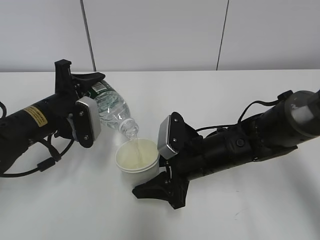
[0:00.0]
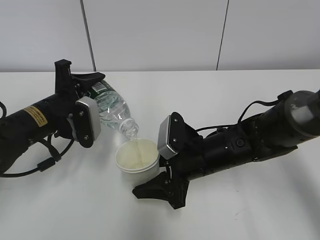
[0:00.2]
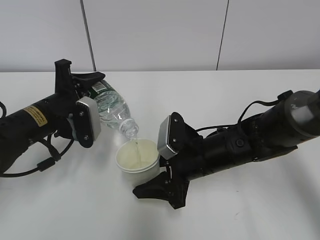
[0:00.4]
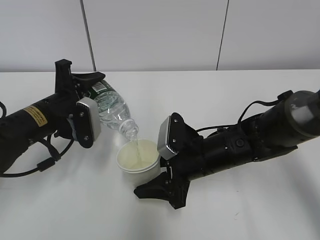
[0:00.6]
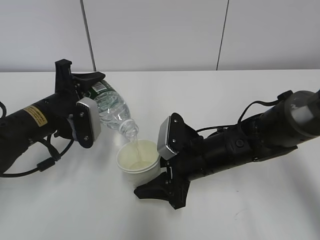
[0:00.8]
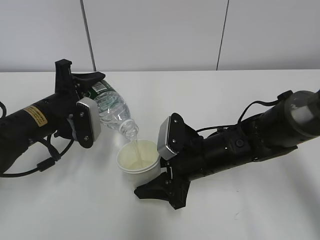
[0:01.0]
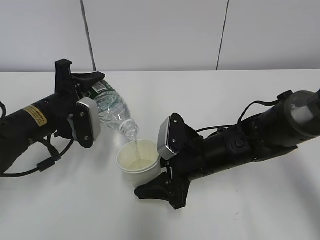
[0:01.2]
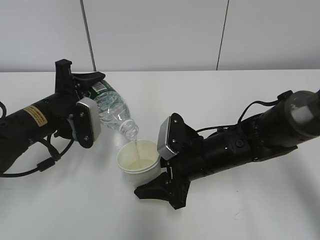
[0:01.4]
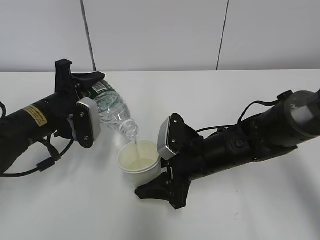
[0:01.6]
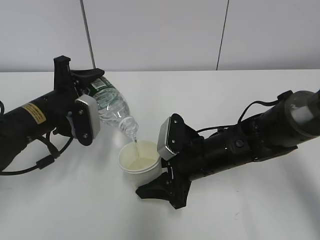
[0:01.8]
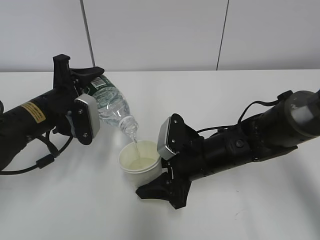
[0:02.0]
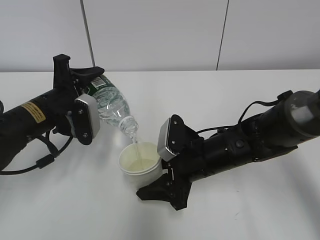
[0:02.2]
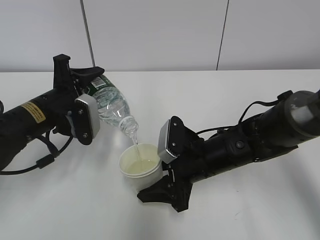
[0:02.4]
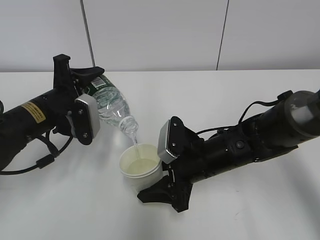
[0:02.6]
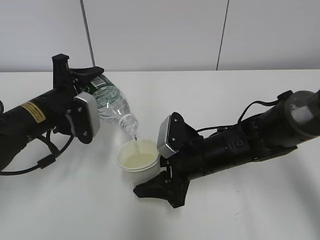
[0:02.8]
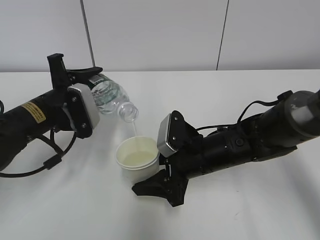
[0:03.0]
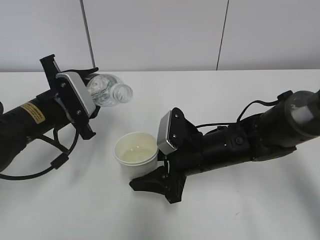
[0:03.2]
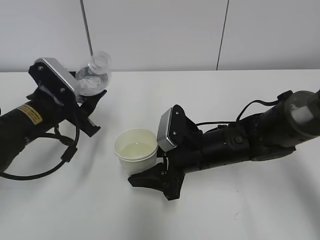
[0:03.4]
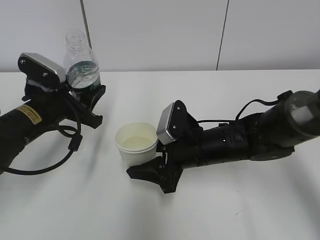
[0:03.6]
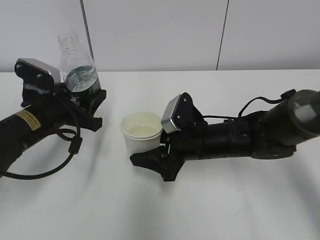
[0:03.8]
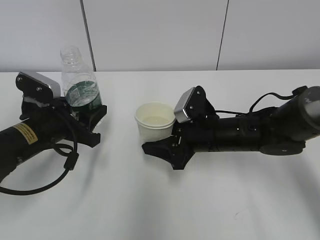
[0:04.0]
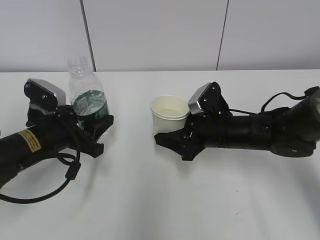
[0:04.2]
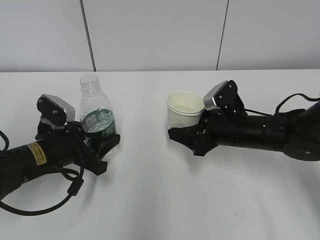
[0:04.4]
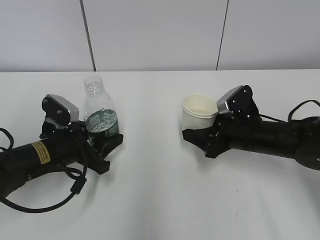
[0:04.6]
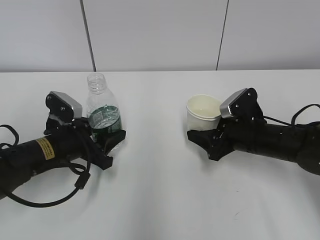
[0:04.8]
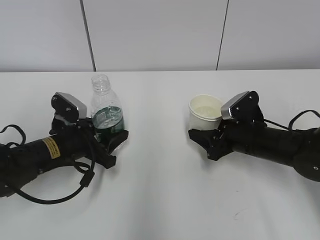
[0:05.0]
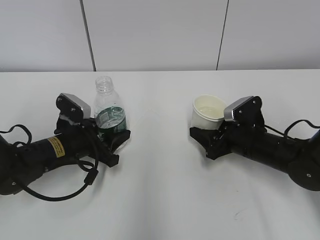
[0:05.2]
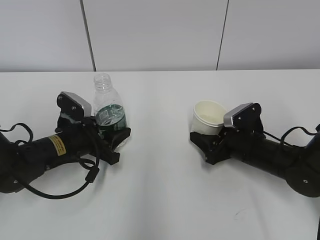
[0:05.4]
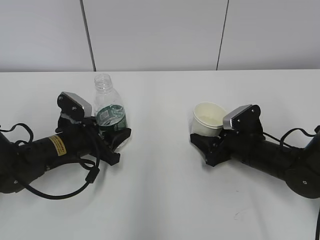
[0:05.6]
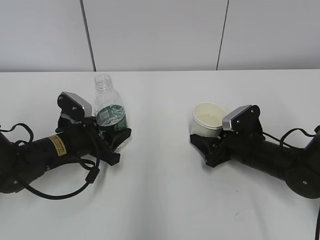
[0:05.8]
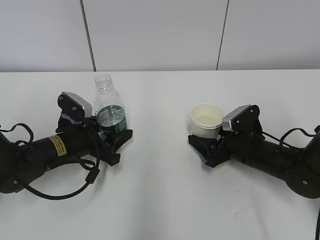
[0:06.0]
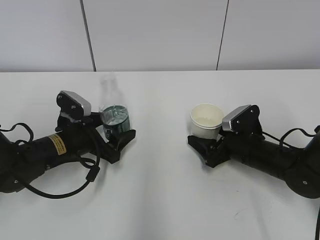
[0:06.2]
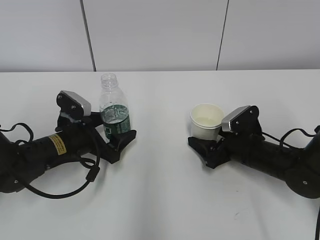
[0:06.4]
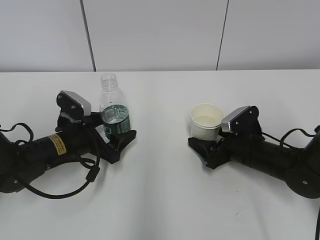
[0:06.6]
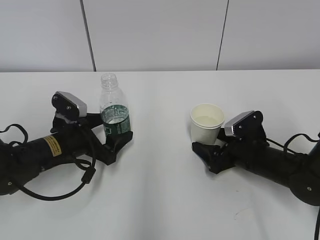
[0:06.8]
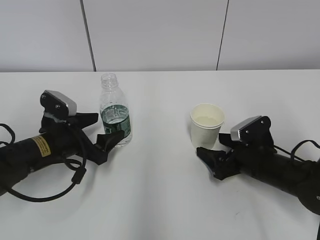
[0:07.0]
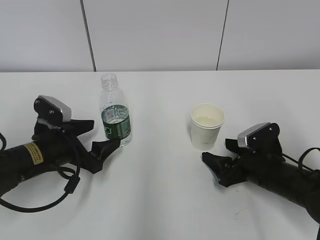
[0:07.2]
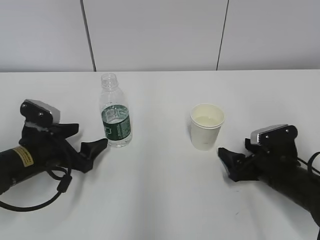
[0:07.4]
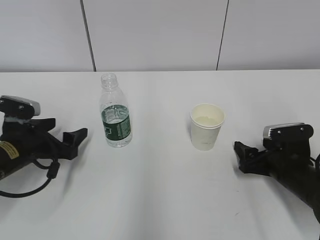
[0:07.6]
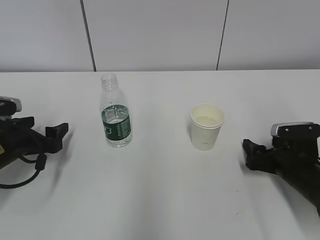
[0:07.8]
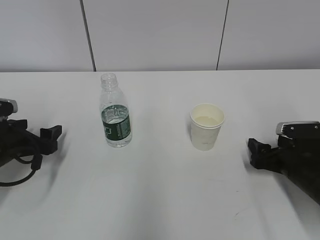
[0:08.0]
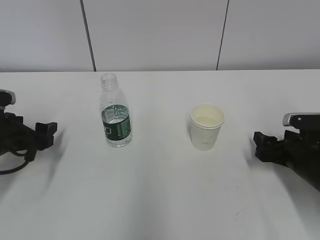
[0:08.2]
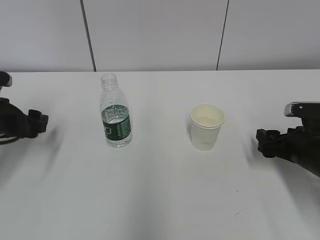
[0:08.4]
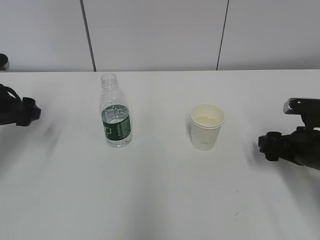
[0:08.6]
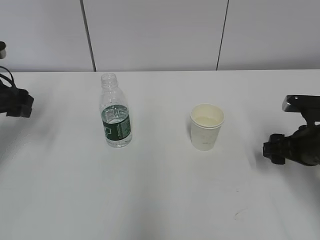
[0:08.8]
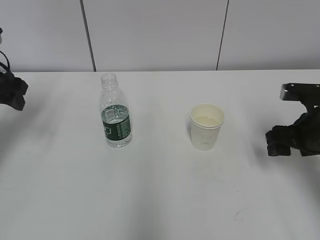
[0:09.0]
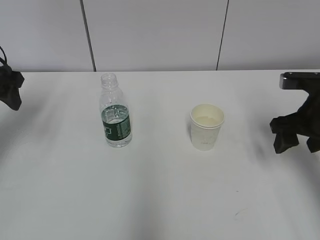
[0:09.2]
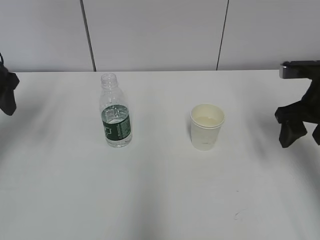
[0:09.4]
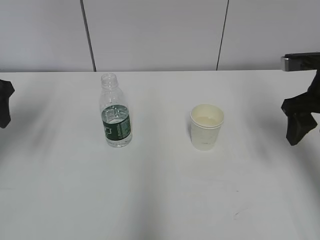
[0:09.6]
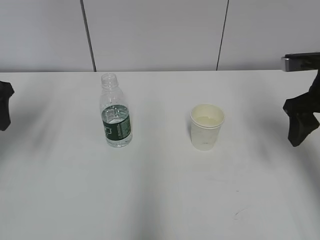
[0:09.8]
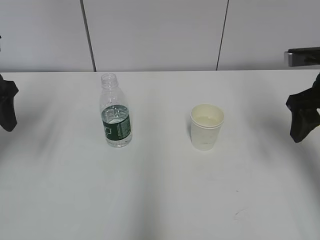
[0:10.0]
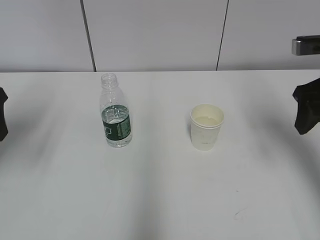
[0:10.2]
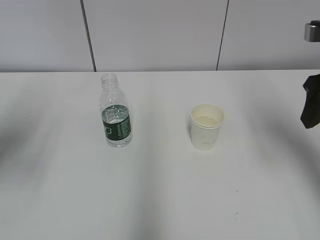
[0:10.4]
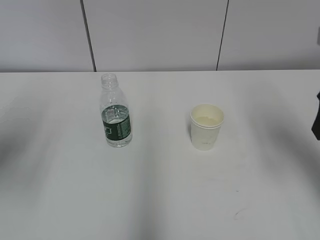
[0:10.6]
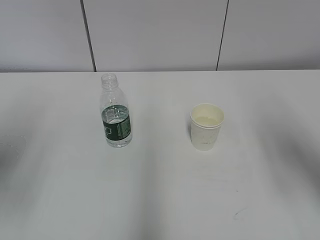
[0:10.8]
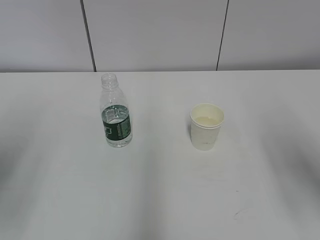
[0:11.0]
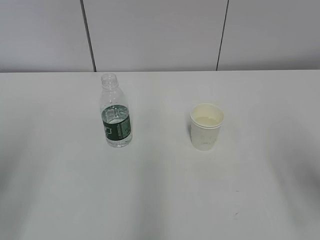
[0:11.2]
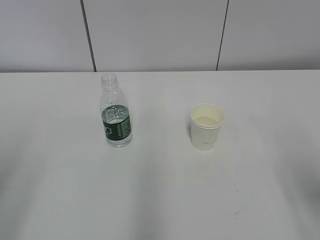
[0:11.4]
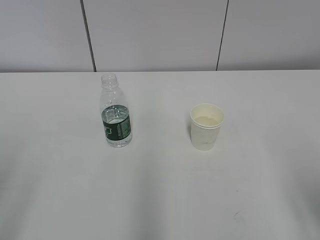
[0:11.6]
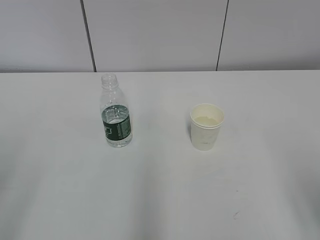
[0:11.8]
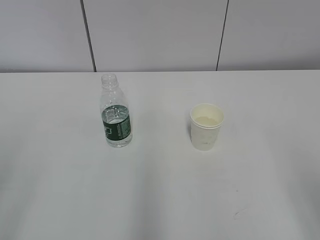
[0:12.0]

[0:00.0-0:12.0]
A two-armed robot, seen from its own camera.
Step, 0.6 to 2.4 s: Place the paper cup with the right hand.
0.0 to 1.6 s: Neither gripper changes place.
1.6 to 3.0 s: There are only small adjustments of the grippers.
3.0 to 4.4 s: The left gripper is displaced downward by roughly 5 cm; the right gripper heads to the right, covering about 5 cm.
4.4 to 6.0 s: The right gripper shifts roughly 5 cm downward, and opens.
6.0 to 7.6 s: The right gripper heads backward, covering some 5 cm, and opens its fingers, while the left gripper moves to the left, about 5 cm, and opens its fingers.
7.6 to 9.0 s: The left gripper travels upward and to the left by roughly 15 cm, while the right gripper shifts roughly 10 cm upward, and closes up.
9.0 to 10.4 s: The left gripper is displaced backward by roughly 10 cm, while the right gripper shifts some 15 cm upward.
10.4 to 12.0 s: Both grippers travel together backward, some 20 cm.

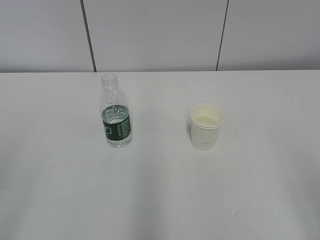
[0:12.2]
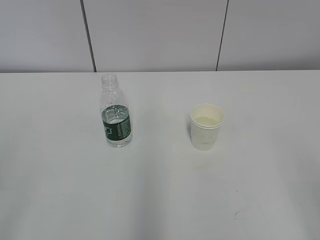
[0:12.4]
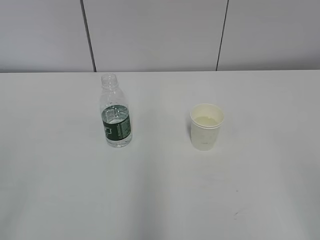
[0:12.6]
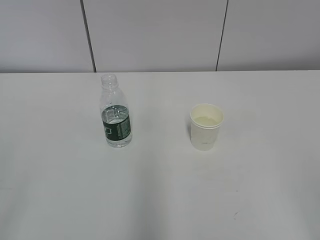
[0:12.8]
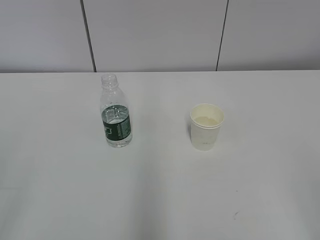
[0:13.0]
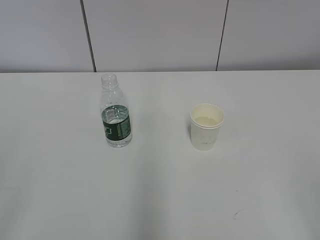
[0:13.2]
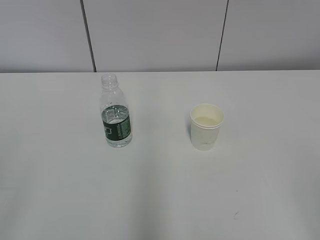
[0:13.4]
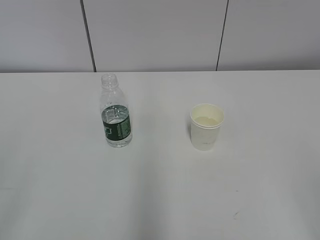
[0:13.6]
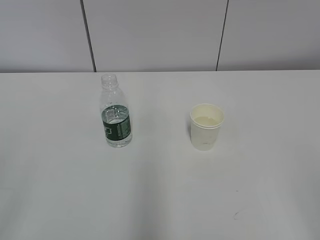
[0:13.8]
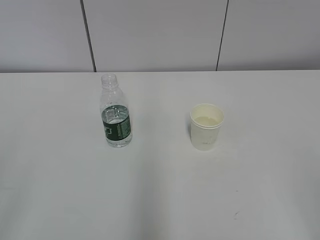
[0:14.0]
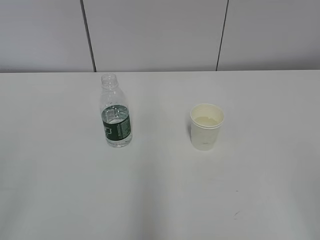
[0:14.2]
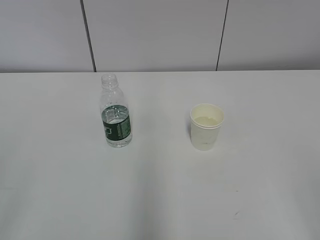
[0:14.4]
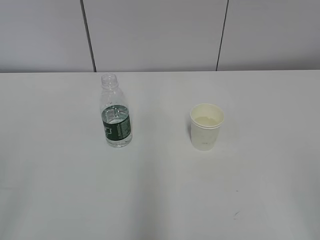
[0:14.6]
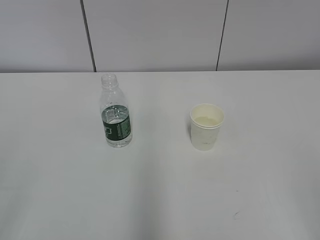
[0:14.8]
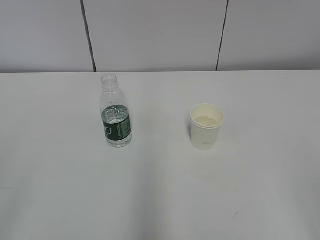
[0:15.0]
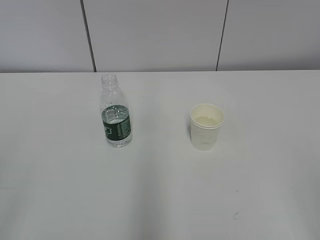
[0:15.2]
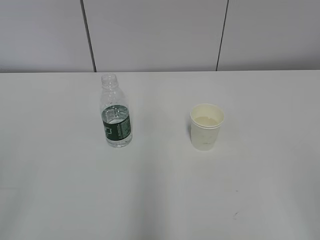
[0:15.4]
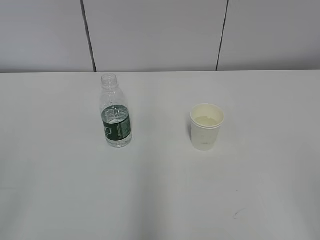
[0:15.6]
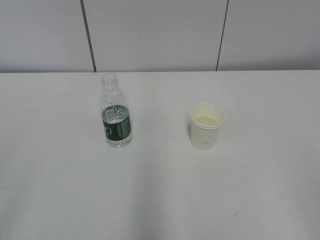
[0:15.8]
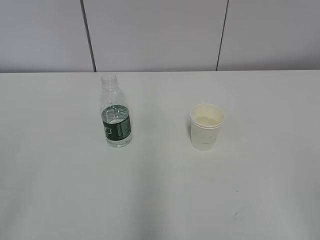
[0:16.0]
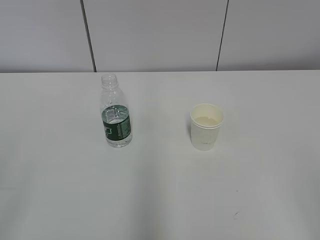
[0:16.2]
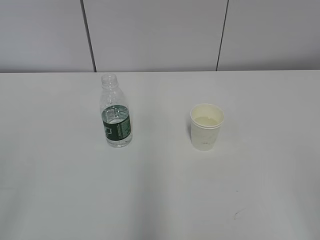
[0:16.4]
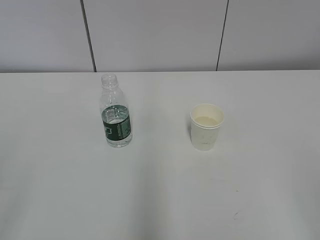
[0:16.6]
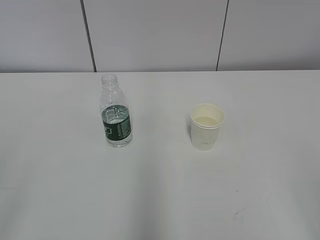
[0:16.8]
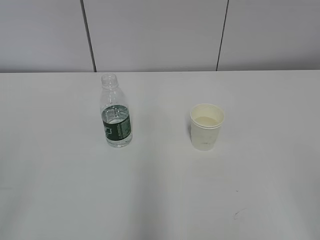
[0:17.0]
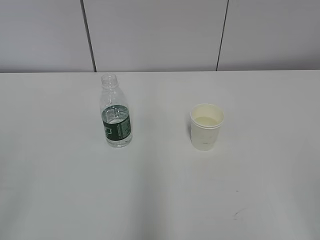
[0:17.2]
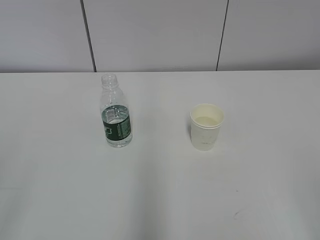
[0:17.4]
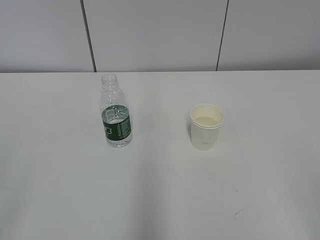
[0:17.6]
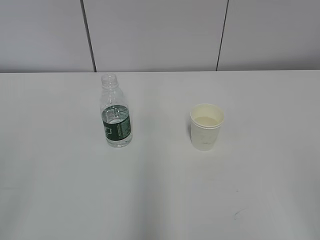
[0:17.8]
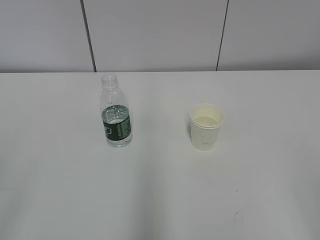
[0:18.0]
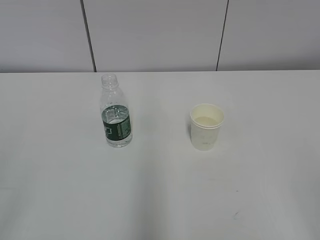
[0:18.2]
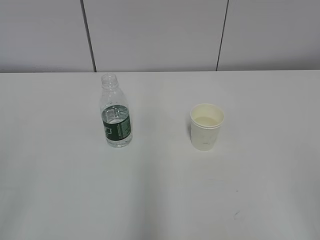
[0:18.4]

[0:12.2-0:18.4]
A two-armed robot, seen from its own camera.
13.8 to 18.4 s: Both grippers stay put.

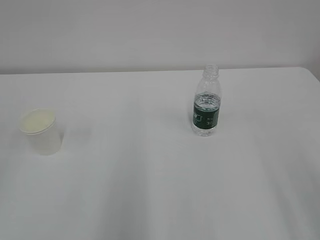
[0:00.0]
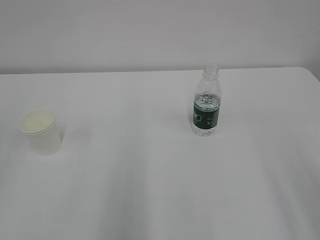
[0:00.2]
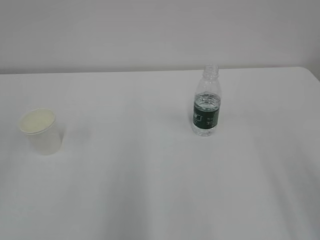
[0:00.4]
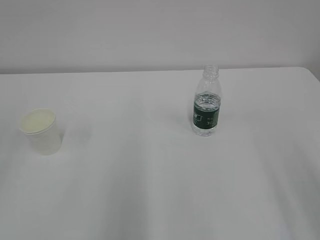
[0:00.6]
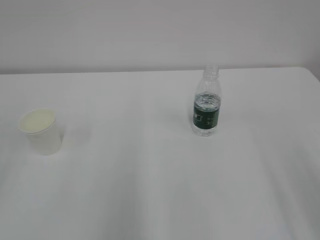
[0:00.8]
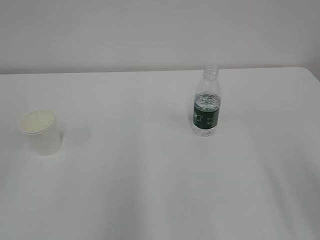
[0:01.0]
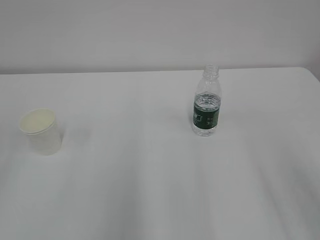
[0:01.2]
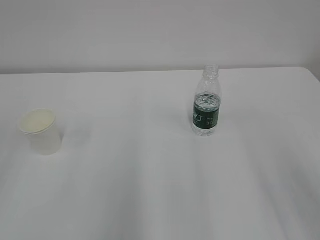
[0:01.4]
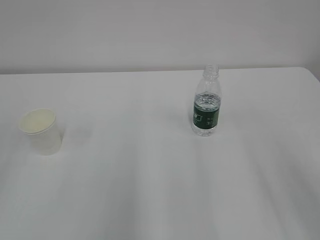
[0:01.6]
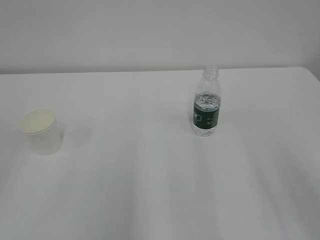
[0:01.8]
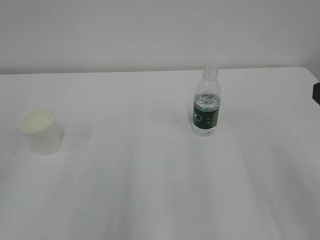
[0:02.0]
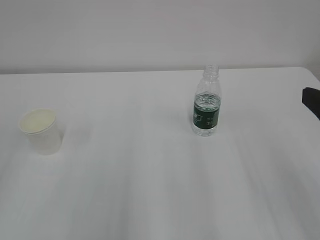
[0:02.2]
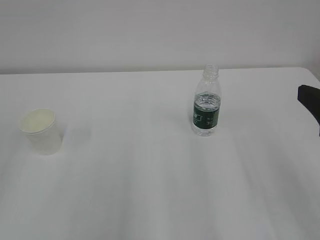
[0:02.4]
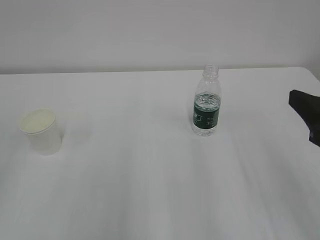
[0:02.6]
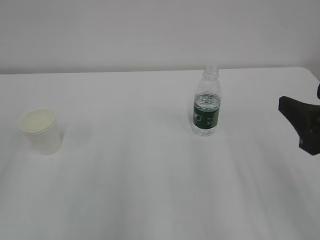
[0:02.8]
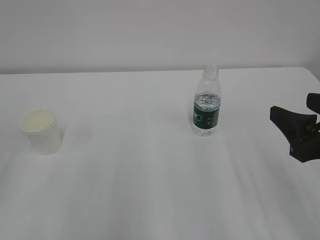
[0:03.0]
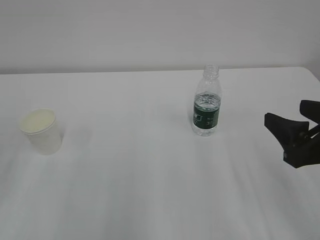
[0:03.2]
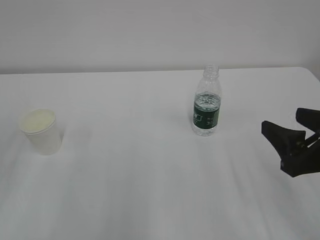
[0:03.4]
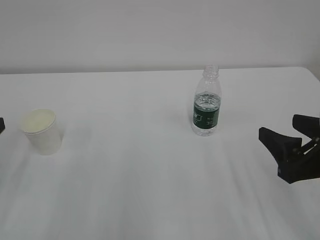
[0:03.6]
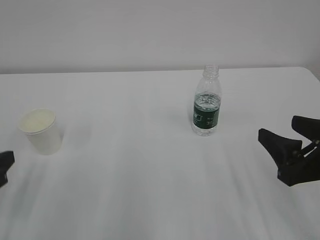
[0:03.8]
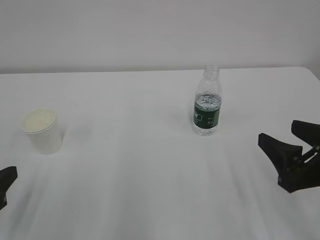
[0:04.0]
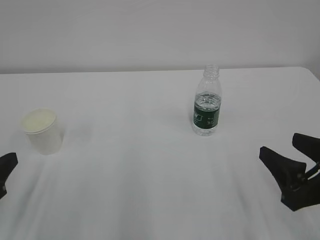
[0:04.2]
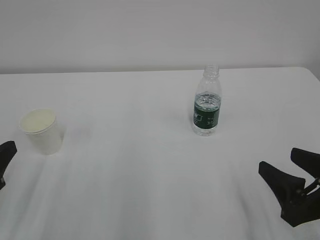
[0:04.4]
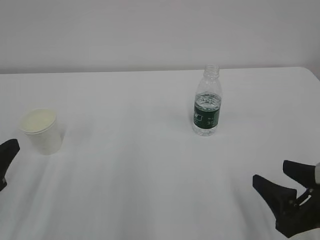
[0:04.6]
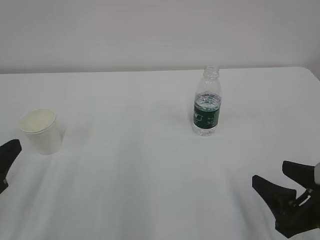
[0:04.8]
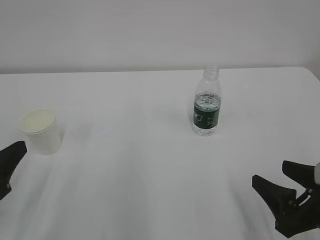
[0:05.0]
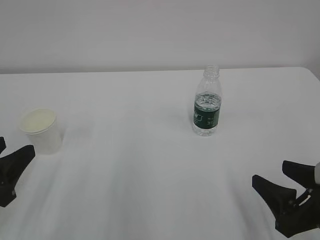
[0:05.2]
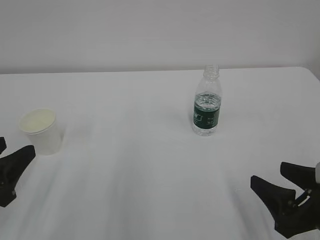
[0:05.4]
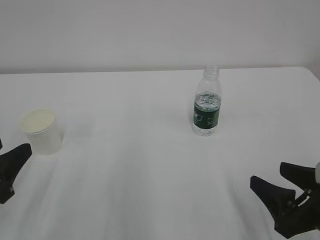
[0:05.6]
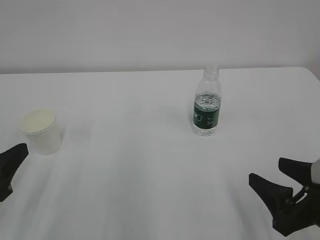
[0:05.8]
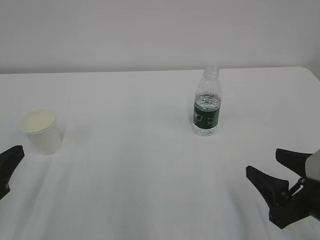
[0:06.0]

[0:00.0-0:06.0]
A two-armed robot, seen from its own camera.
1.6 to 3.0 s: The right gripper shifts roughly 5 cm downward.
3.0 to 4.4 s: The grippers both shift downward by approximately 10 cm.
4.4 to 6.0 s: There are only small adjustments of the grippers.
